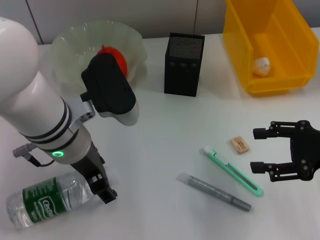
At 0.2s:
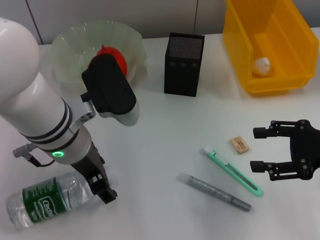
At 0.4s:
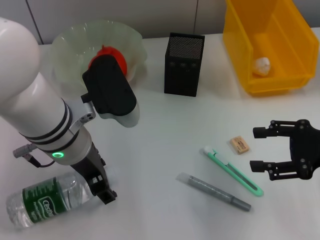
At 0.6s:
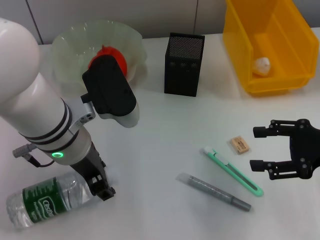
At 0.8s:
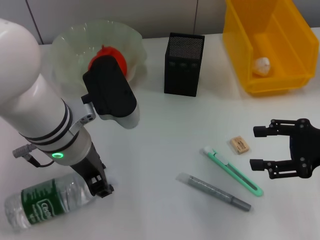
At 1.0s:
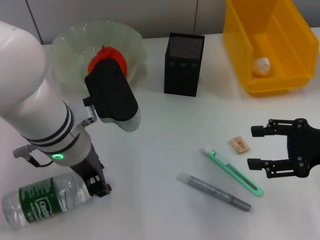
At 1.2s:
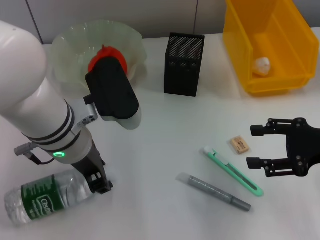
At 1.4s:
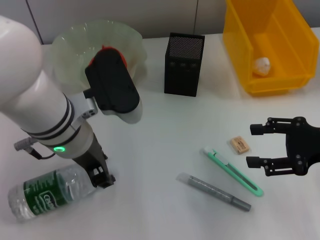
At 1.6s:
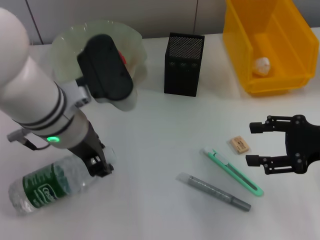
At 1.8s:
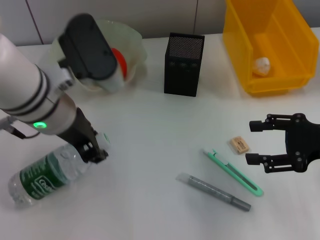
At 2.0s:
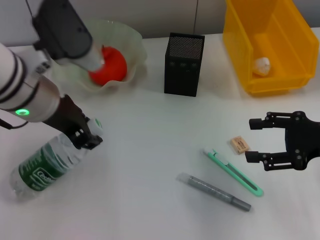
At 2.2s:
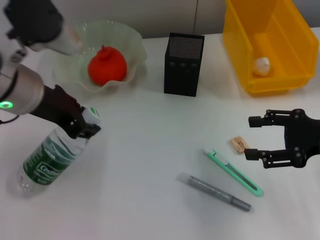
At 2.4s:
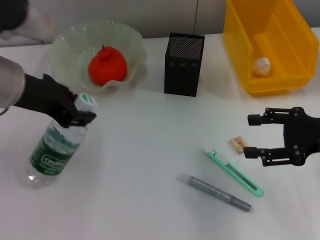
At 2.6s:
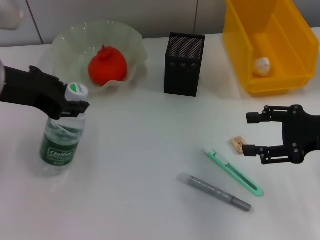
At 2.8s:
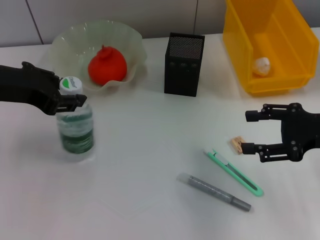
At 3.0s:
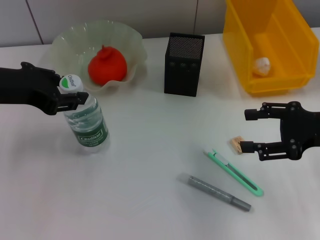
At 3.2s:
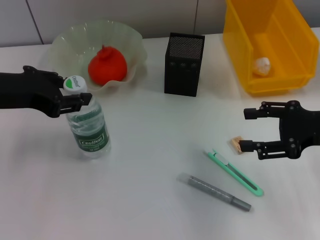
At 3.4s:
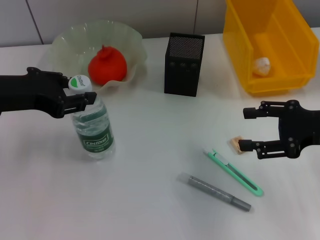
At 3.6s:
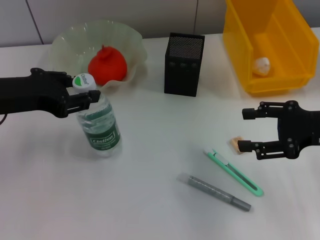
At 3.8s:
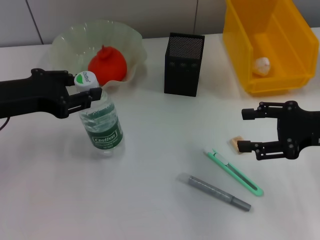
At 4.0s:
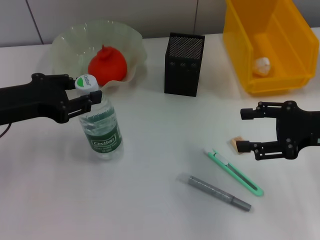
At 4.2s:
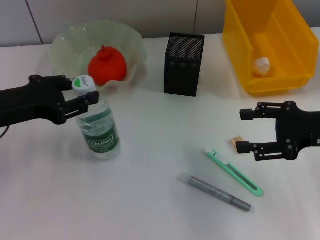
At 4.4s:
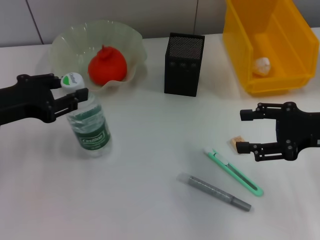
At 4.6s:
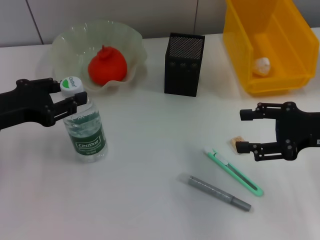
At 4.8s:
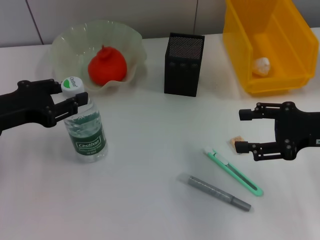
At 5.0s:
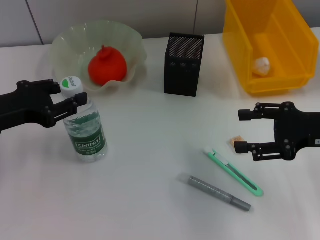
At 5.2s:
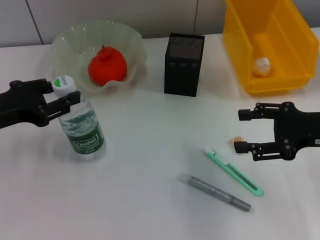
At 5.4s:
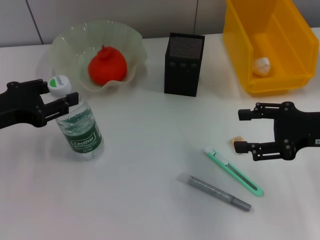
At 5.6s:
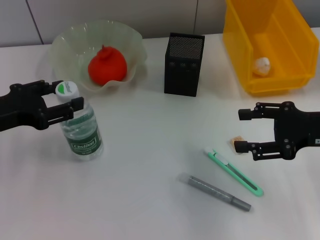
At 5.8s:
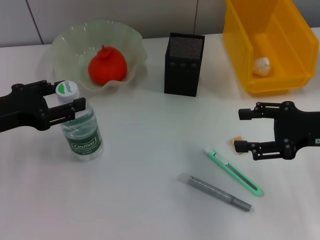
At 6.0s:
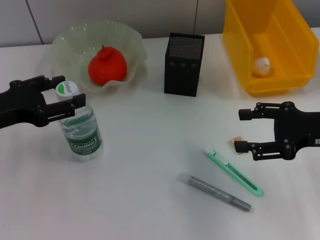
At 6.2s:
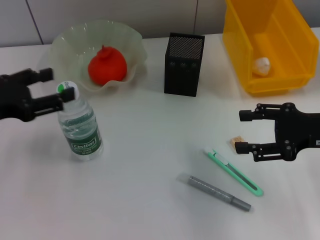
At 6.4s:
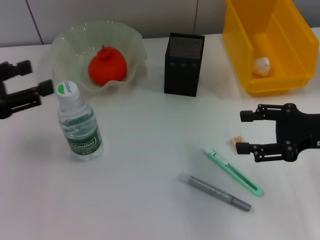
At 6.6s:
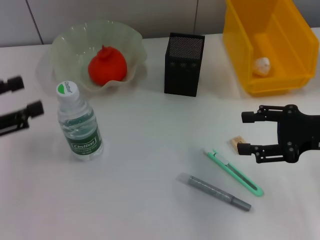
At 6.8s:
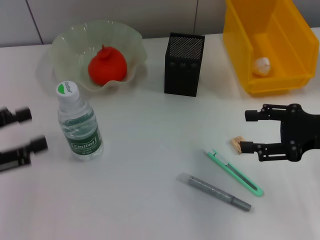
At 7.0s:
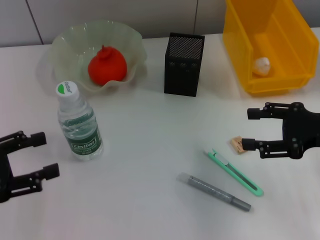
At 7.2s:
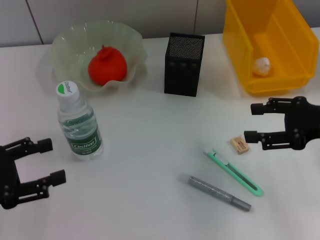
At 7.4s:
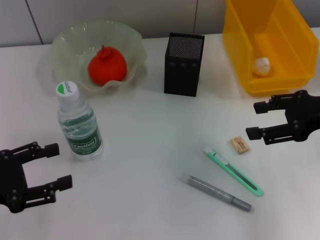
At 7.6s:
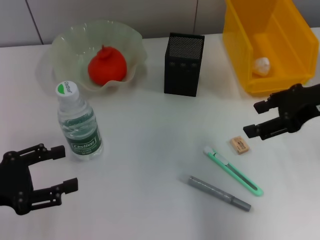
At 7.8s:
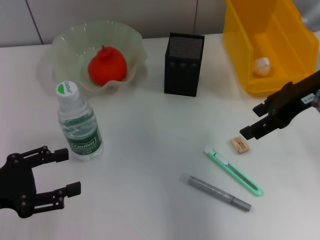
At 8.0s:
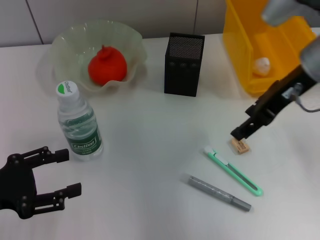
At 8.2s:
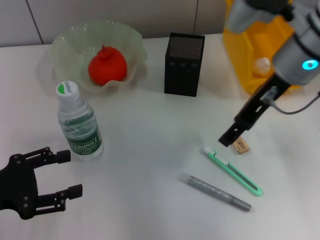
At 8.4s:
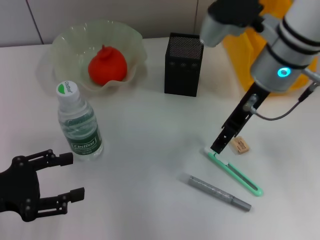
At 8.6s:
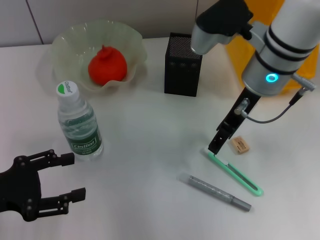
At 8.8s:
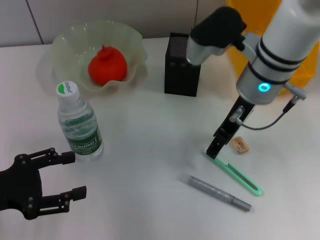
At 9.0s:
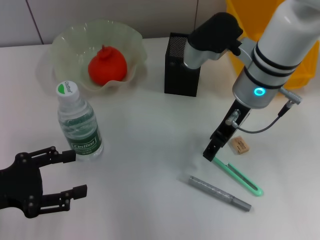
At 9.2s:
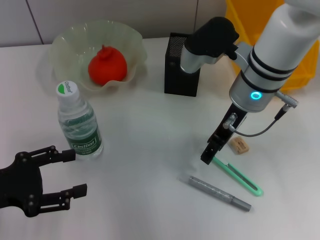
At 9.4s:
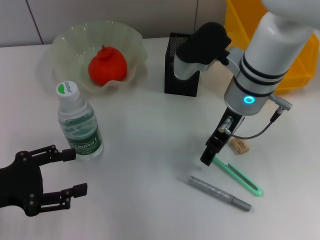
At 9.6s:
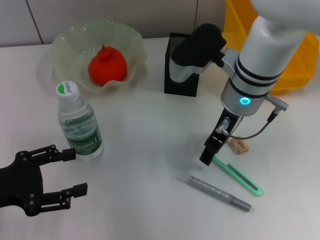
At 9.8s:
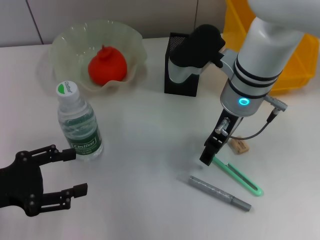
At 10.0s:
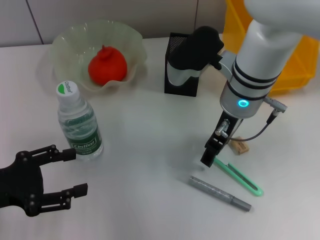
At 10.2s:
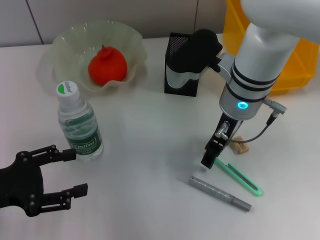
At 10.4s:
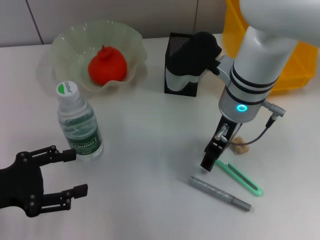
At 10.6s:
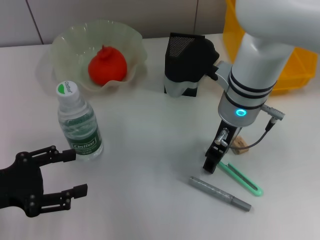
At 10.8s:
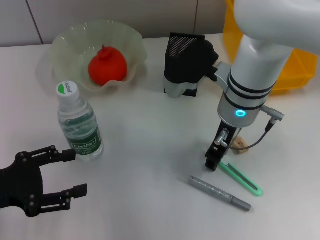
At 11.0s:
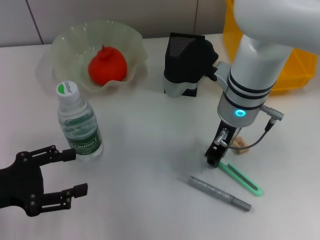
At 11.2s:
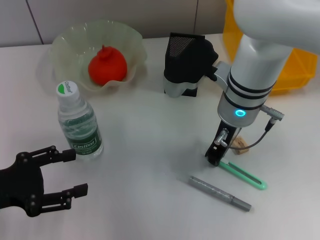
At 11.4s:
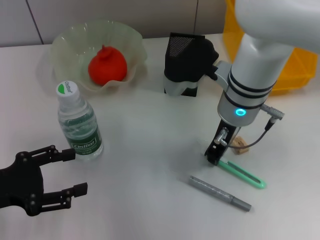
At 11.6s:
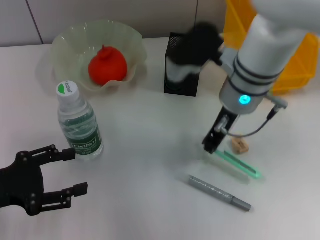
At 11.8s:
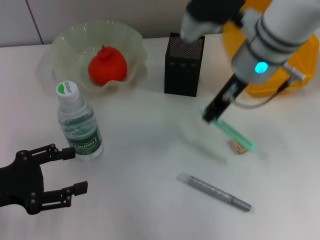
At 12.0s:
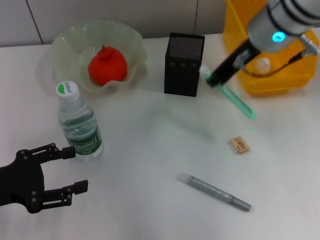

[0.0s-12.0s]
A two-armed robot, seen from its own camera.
Step, 1.0s to 5.8s: Place the water bottle on the table with the left hand.
Step, 6.2s to 11.0s: Grab the blue utility knife with the right hand.
0.0s to 1.6s: The left gripper closes up.
1.6s to 3.0s: The left gripper moves to the left, approximately 10 cm.
3.0s to 4.4s: The left gripper moves downward, some 5 cm.
4.4s to 6.0s: The grippers make only small movements.
6.0s to 7.6s: The right gripper heads upward, covering about 5 cm. Meanwhile the left gripper heads backward, covering about 5 cm.
7.6s to 9.0s: The right gripper heads to the left and forward, covering roughly 15 cm.
9.0s to 10.4s: The grippers make only small movements.
10.4s to 12.0s: The right gripper is displaced upward by about 10 cm, and closes its fingers.

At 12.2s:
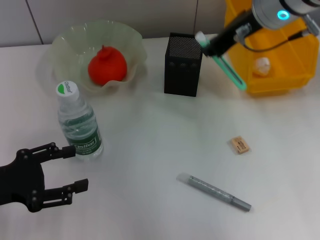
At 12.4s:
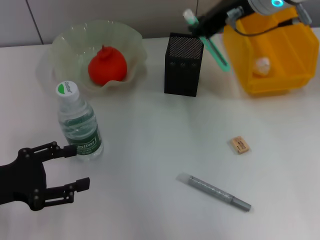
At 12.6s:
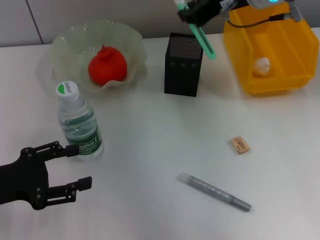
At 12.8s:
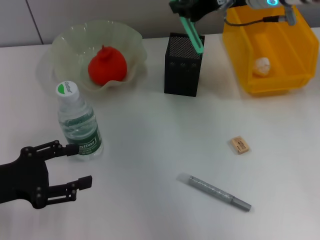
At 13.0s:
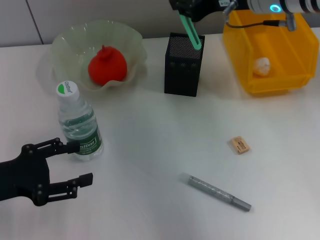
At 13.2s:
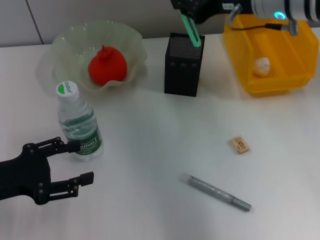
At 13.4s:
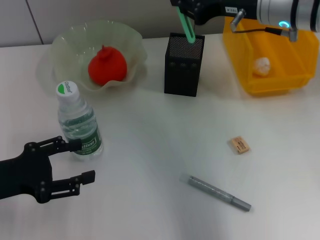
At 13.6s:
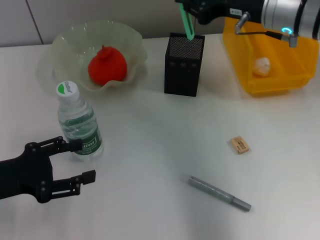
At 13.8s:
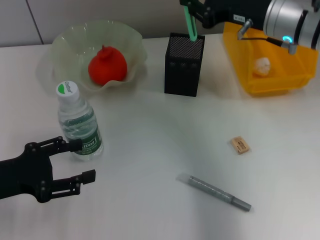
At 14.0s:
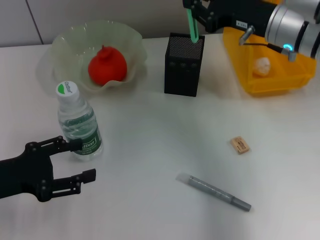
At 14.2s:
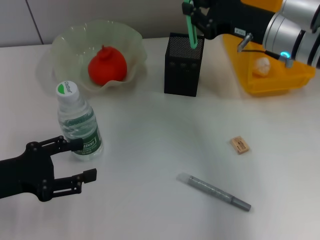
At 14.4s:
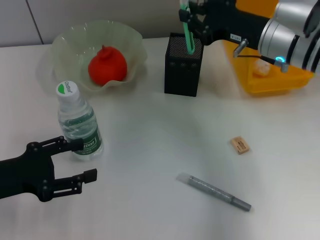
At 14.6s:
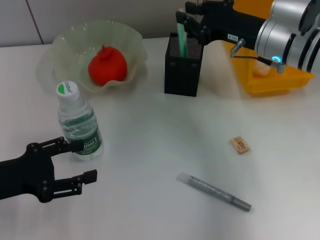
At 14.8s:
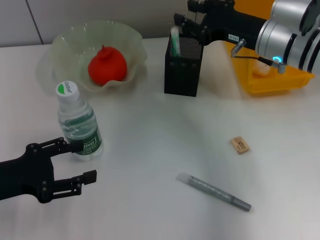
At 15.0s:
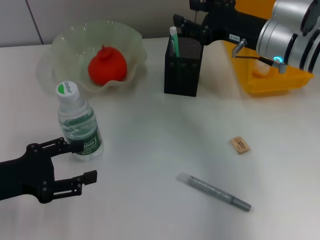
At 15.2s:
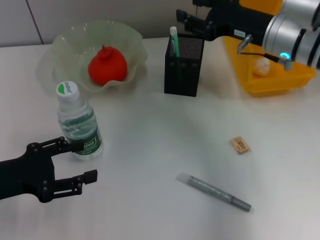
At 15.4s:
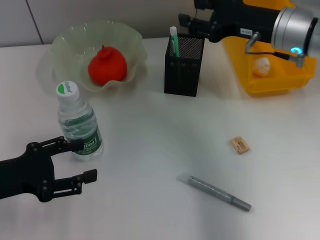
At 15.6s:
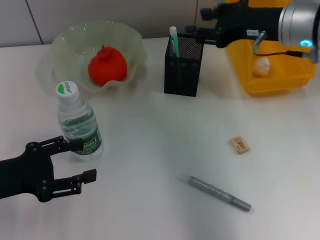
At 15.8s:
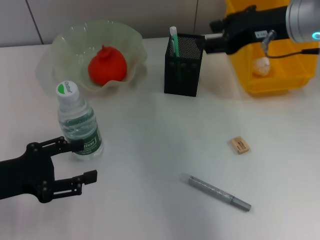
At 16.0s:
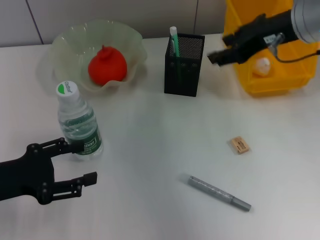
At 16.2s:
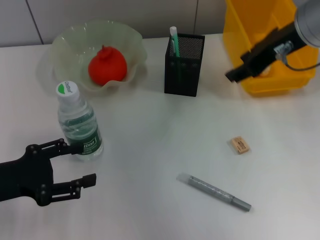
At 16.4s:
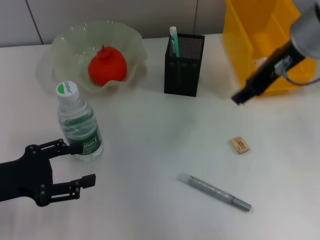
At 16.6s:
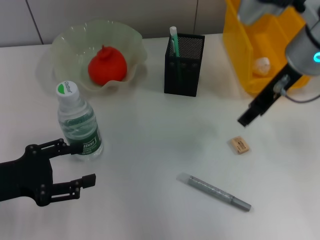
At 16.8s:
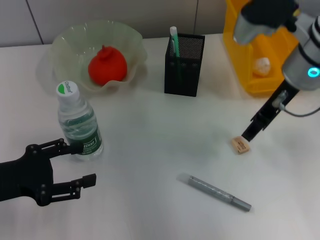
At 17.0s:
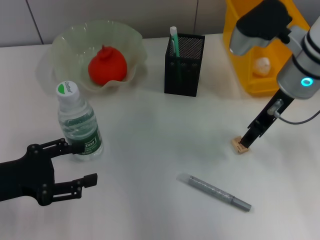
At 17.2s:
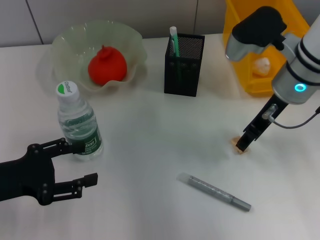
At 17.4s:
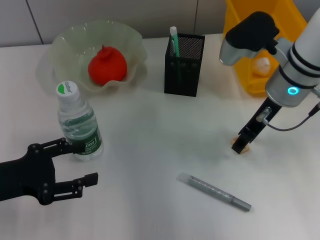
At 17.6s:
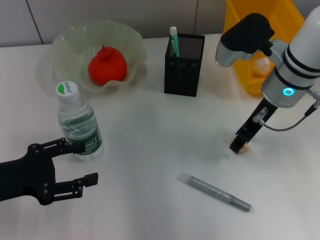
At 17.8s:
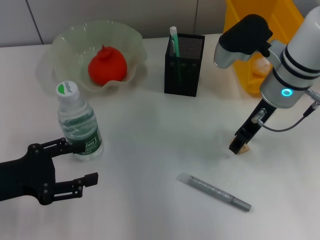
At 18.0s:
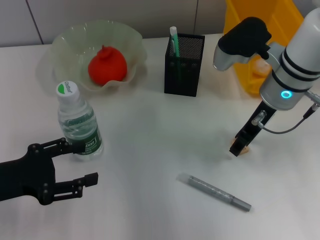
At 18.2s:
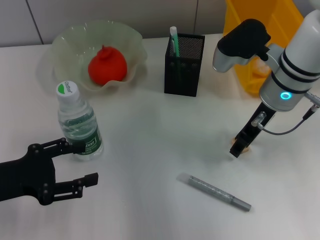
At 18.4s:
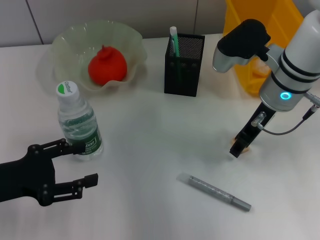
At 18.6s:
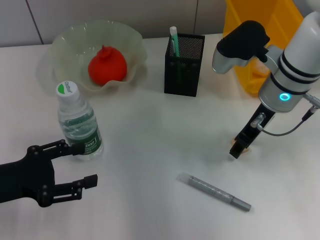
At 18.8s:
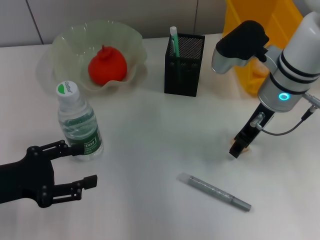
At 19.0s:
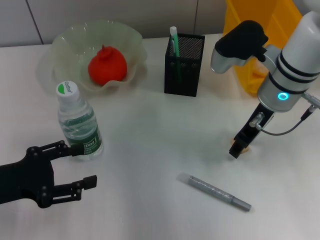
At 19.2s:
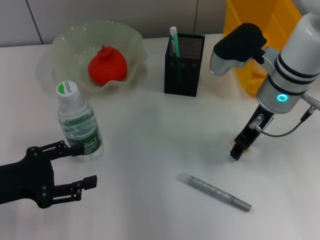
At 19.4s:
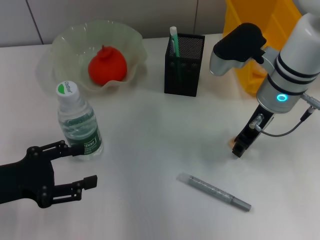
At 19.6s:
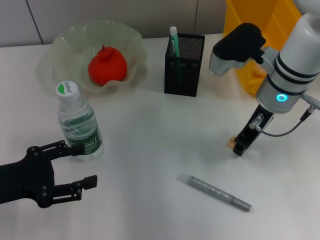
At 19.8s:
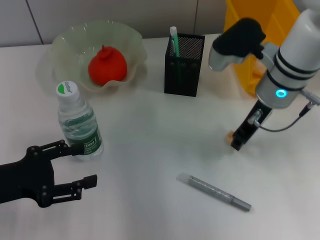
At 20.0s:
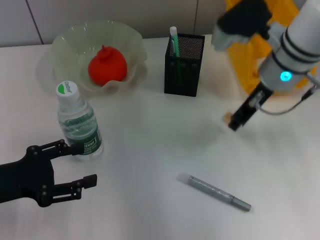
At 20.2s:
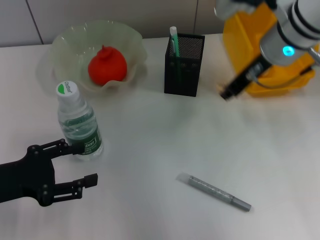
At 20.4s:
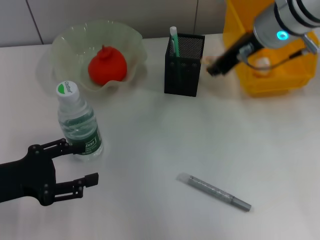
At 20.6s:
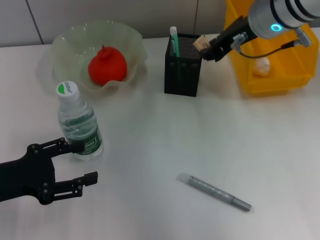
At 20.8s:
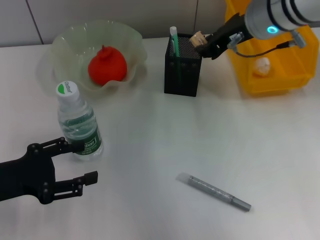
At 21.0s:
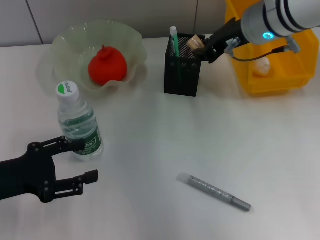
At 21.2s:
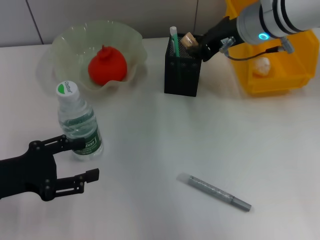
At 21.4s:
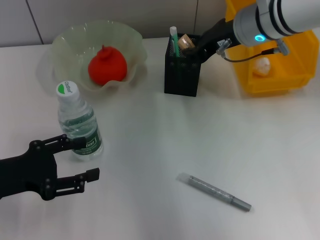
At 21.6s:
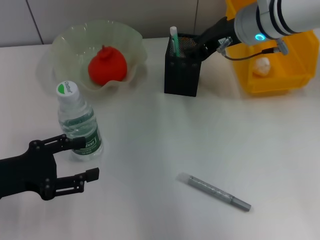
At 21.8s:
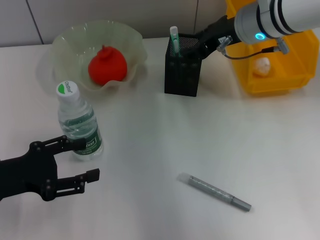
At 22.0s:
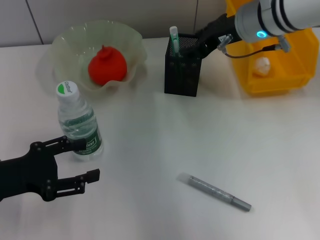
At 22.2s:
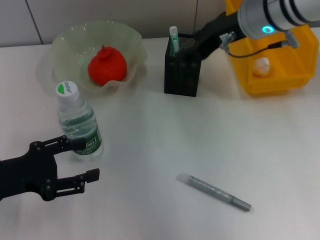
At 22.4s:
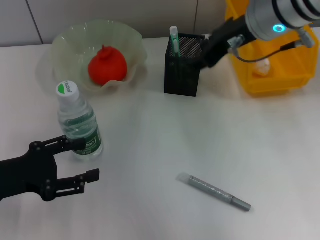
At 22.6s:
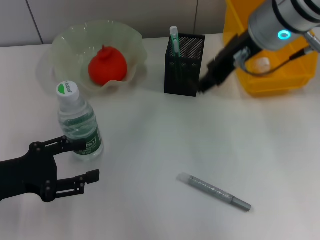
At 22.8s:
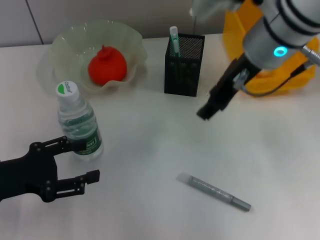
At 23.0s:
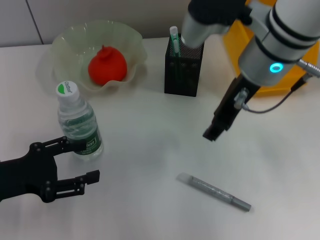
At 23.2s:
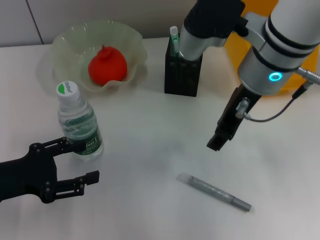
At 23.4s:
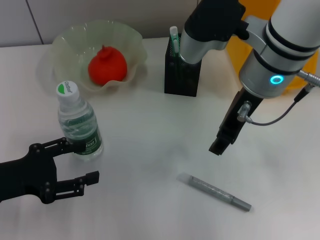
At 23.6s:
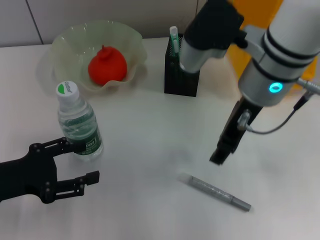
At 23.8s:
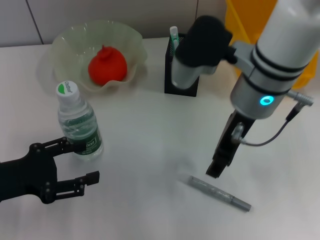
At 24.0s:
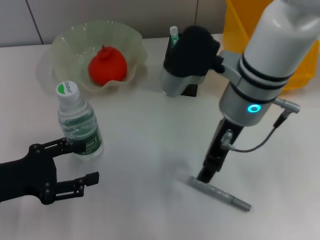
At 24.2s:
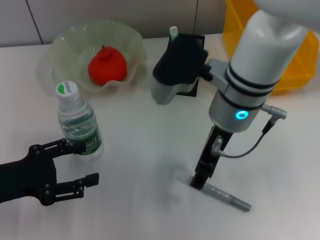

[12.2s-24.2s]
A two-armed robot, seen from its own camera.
Step, 12.2s to 15.0s: Place the blue utility knife into the pen holder with the right hand.
Step, 15.2s to 19.4s: Grab the eraser with the right hand.
Step, 19.6s to 22.0s: Put the eraser into the pen holder with the right hand.
12.2s to 13.8s: The right gripper is displaced downward by some 5 cm.
13.8s to 15.2s: The right gripper opens.
15.2s to 16.6s: The right gripper goes some 5 cm upward.
16.6s to 18.2s: The right gripper moves downward, approximately 10 cm.
18.2s to 19.8s: The right gripper closes.
19.8s to 21.2s: The right gripper heads upward, covering some 5 cm.
21.2s to 22.6s: The right gripper shifts by approximately 5 cm, and opens.
22.6s to 24.2s: The right gripper moves downward and to the left, roughly 10 cm.
